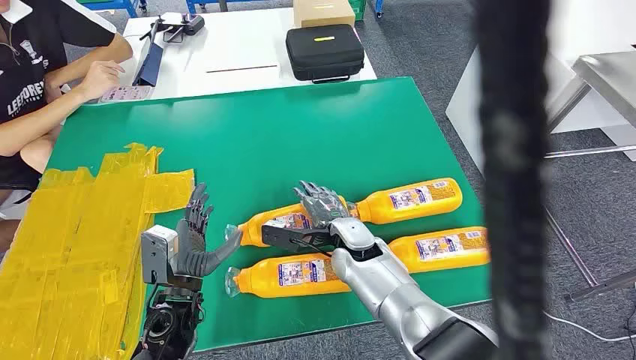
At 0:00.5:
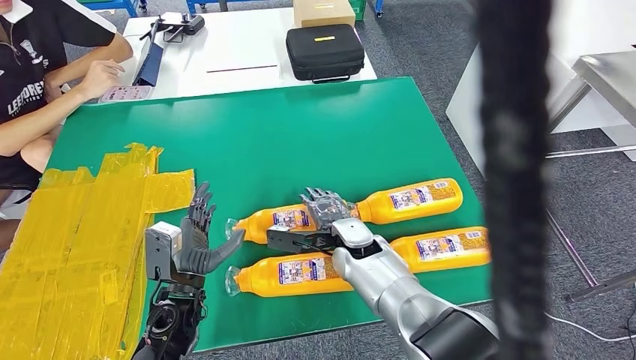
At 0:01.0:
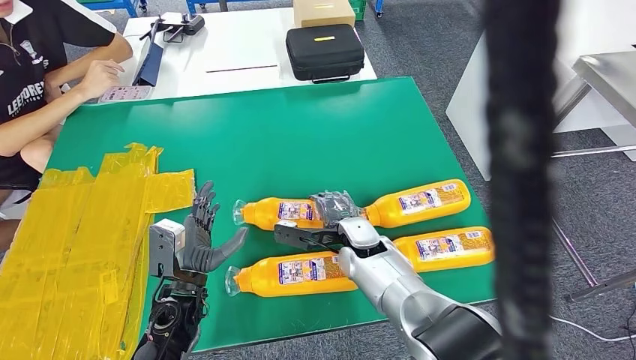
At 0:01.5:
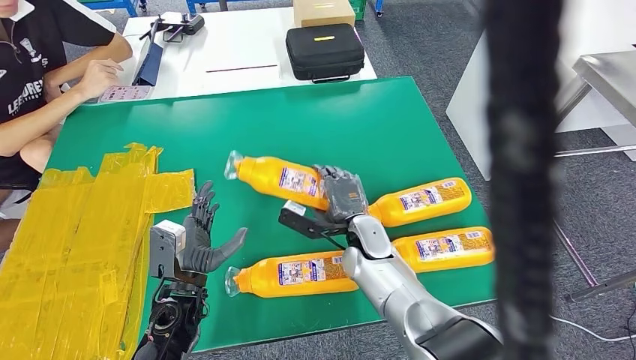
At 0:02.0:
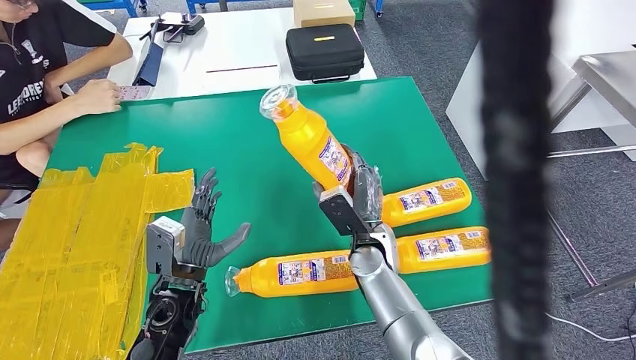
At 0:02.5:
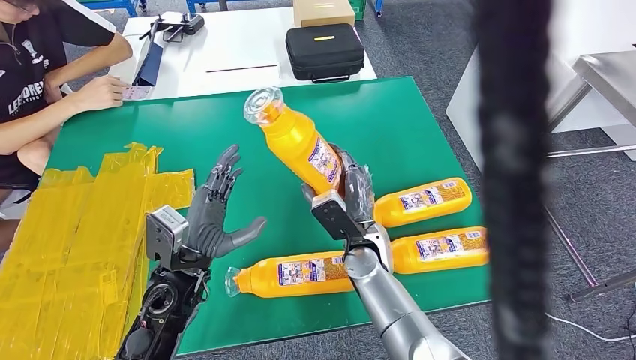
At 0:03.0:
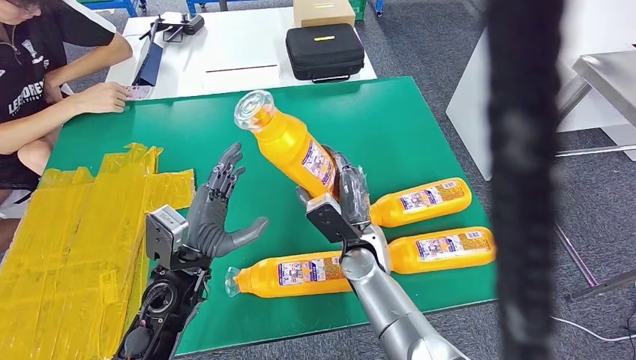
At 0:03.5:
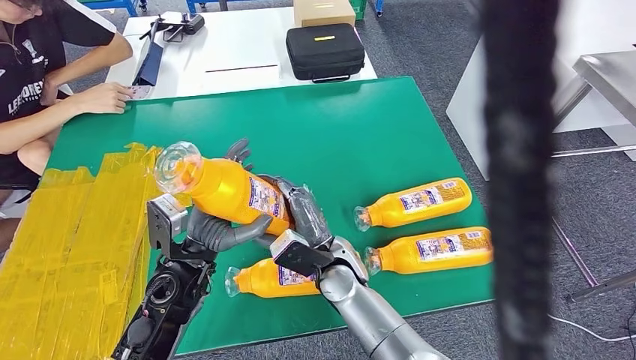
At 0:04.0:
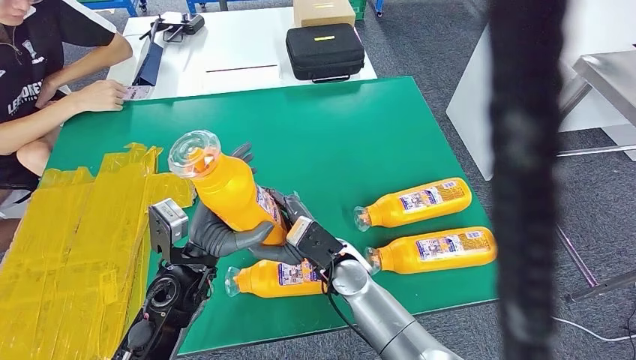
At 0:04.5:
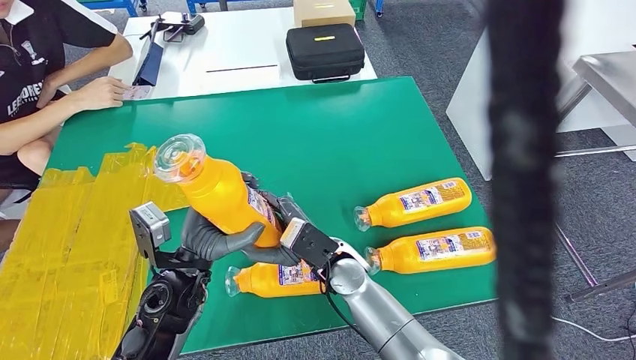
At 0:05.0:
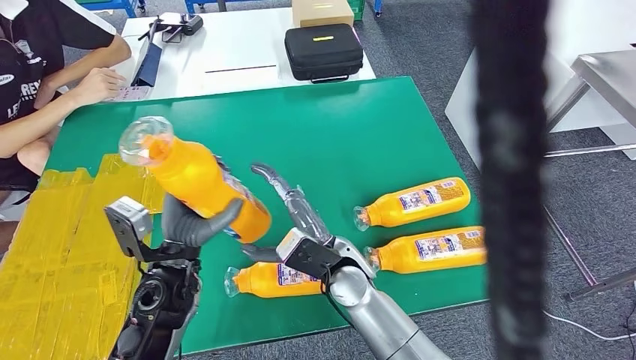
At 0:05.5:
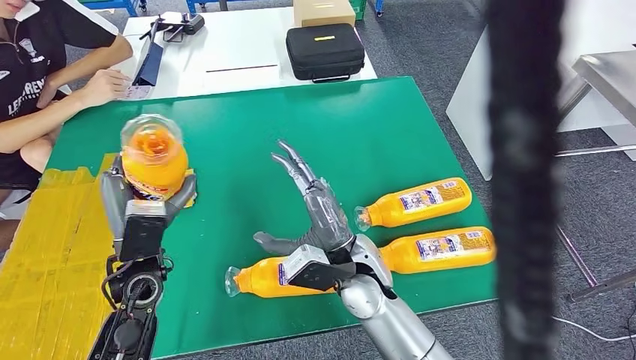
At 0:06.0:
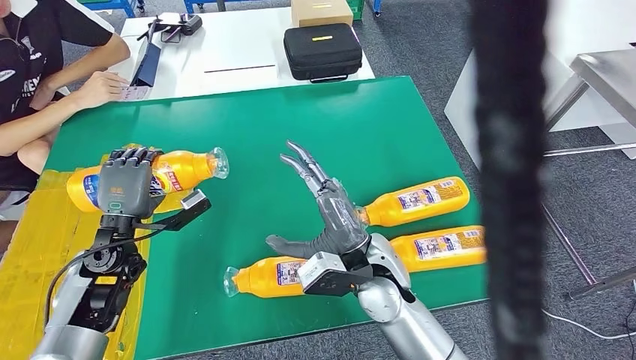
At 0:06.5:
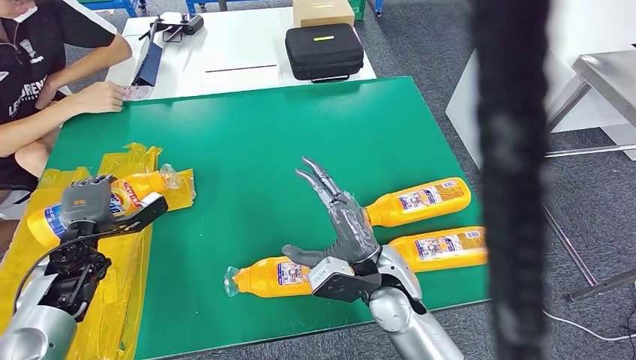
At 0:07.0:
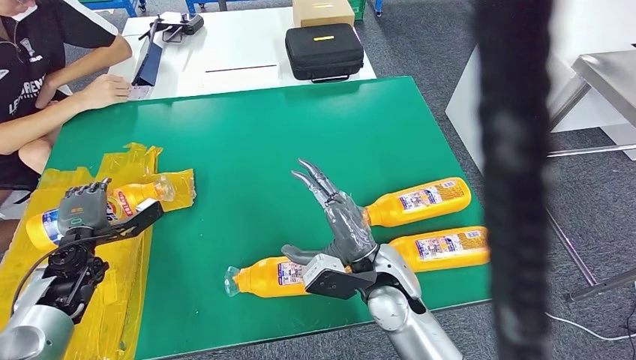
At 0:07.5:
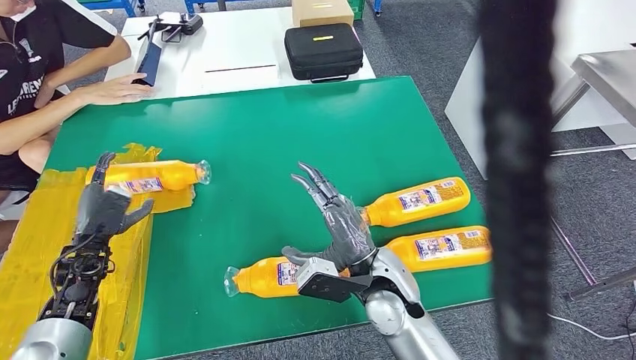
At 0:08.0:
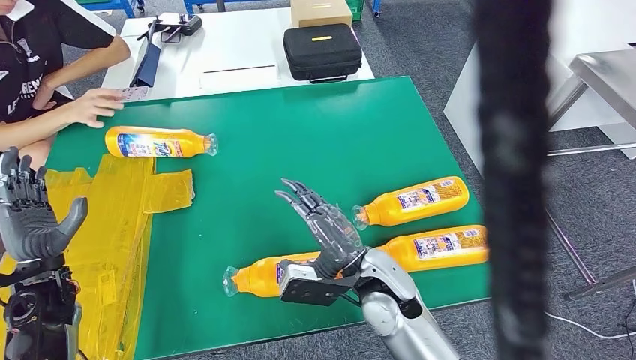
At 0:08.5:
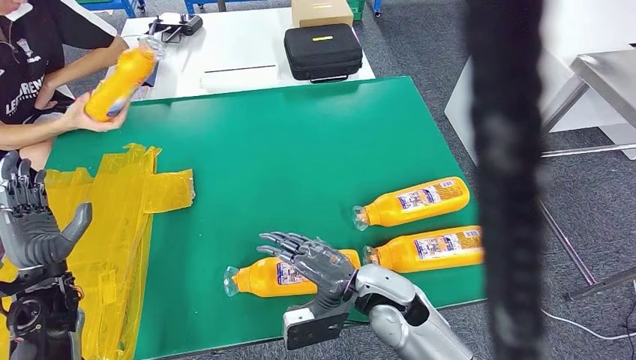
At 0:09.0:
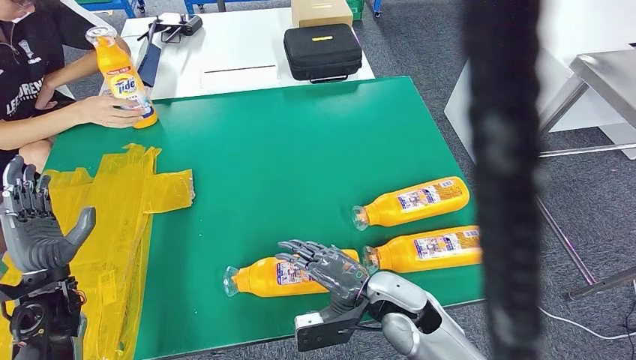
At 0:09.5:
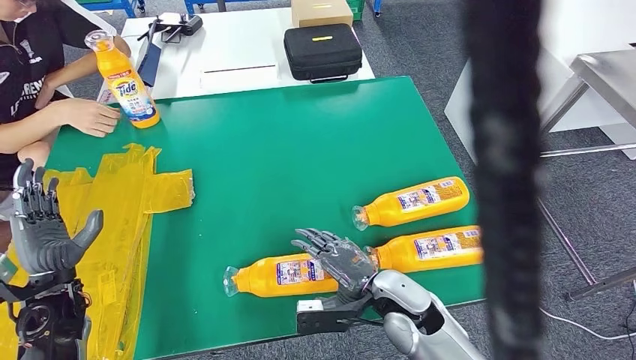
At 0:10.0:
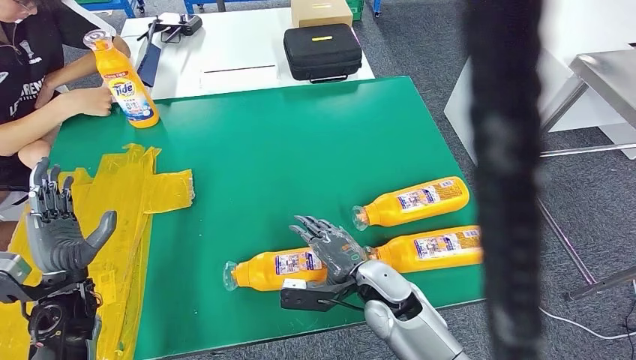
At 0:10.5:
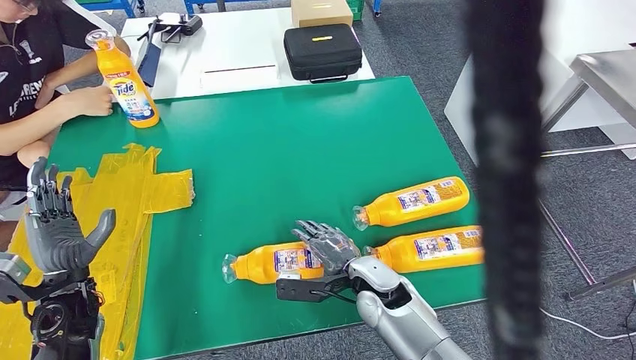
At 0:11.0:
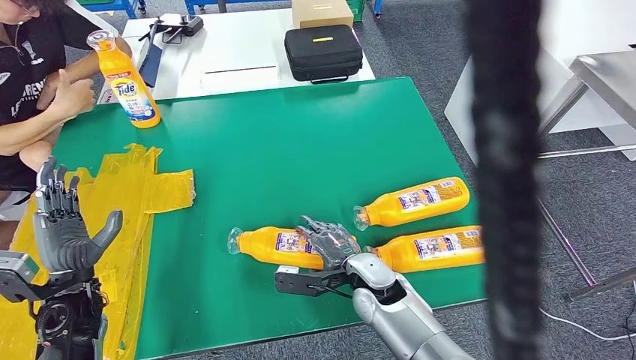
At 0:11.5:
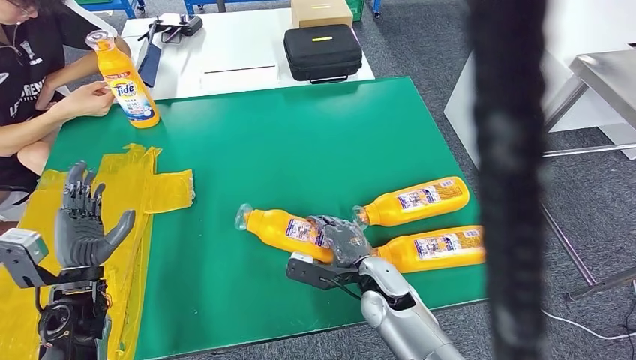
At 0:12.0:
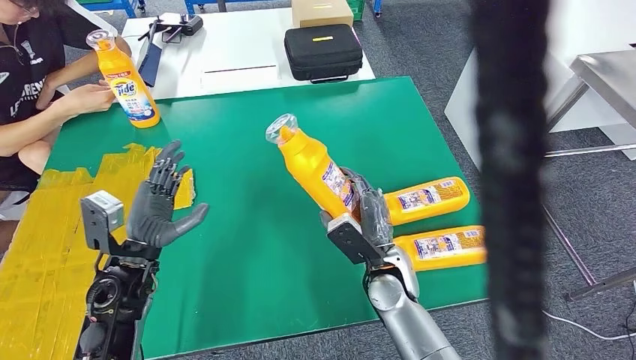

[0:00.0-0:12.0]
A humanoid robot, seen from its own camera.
Step, 0:00.0 to 0:02.5: Take the fast-moving consumer goods bottle from the table.
Step, 0:03.0 to 0:07.5: Flip the fast-moving consumer goods bottle to the front side.

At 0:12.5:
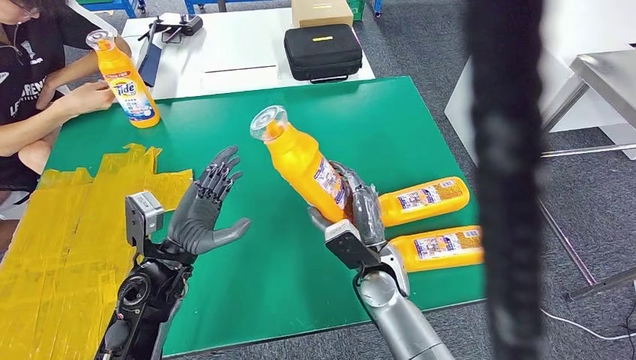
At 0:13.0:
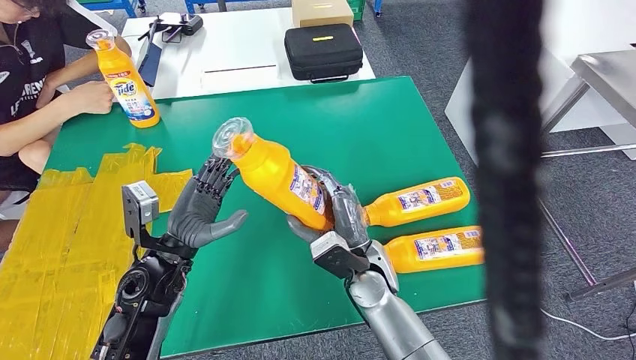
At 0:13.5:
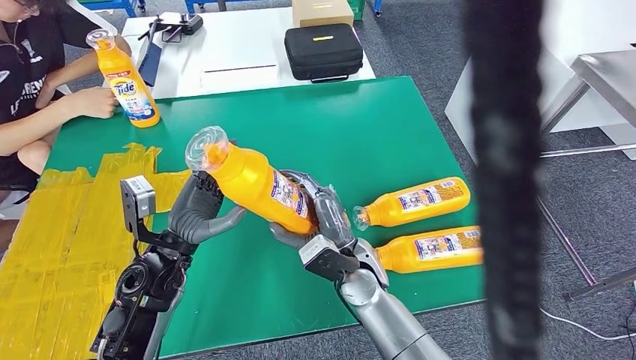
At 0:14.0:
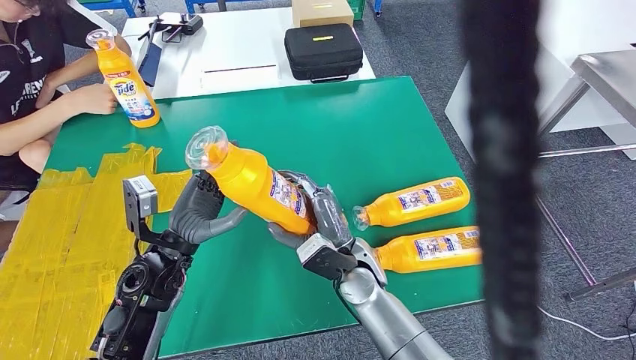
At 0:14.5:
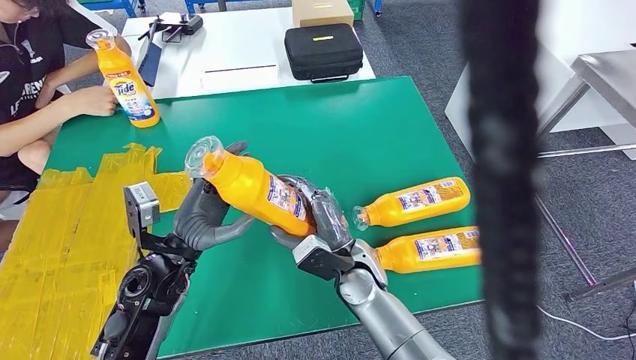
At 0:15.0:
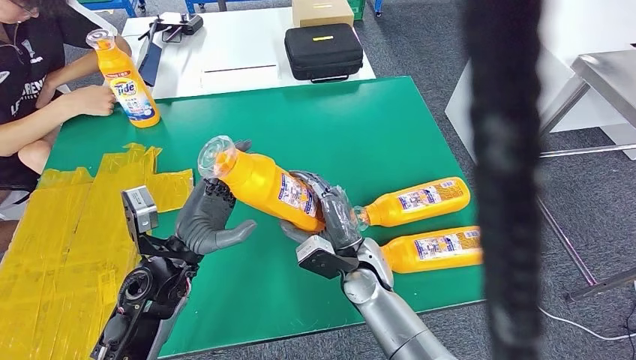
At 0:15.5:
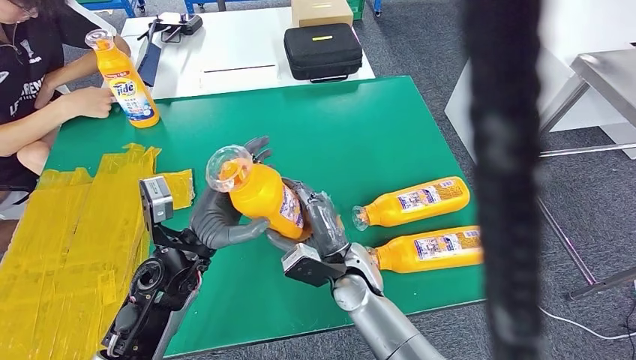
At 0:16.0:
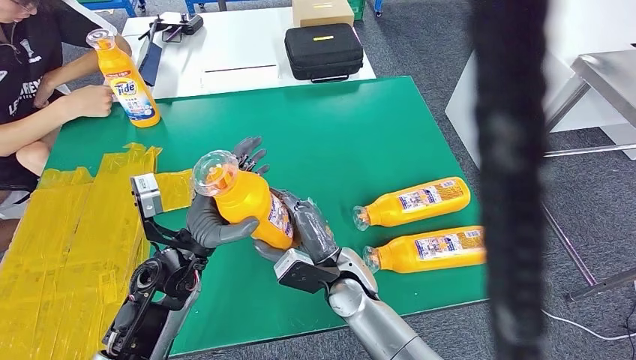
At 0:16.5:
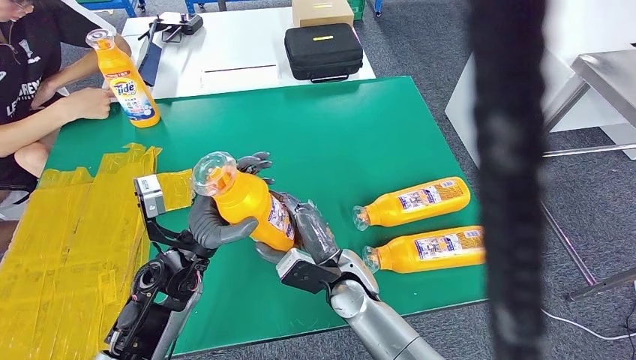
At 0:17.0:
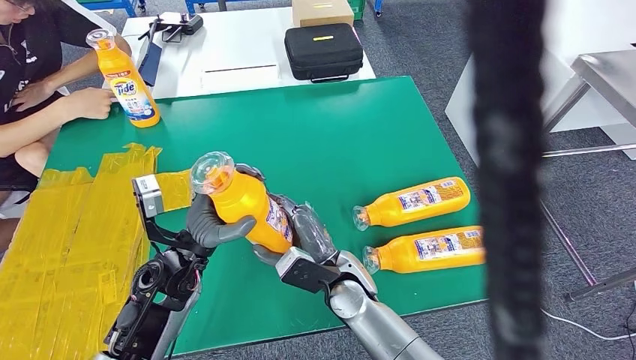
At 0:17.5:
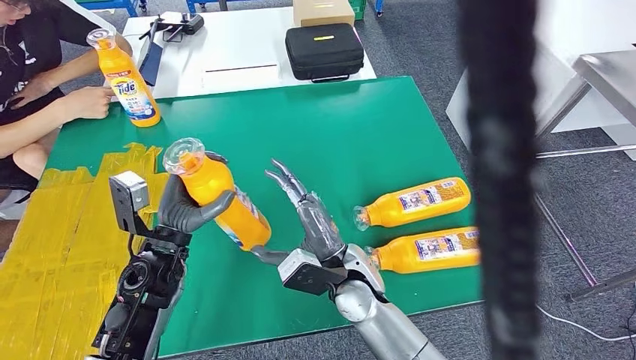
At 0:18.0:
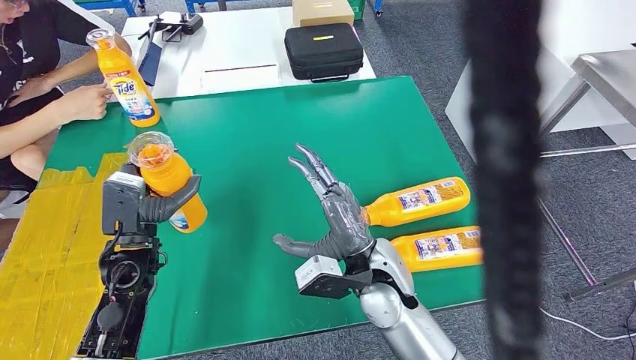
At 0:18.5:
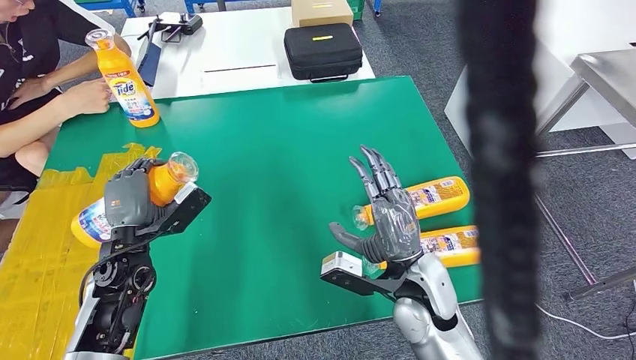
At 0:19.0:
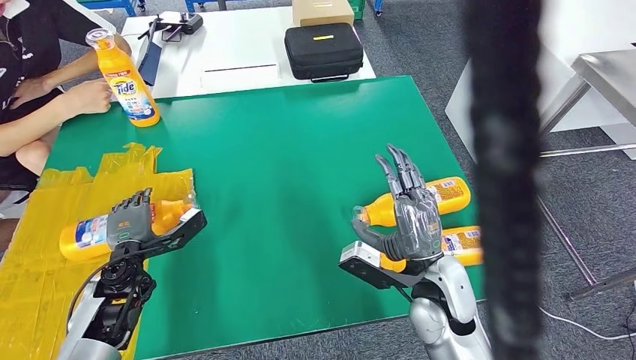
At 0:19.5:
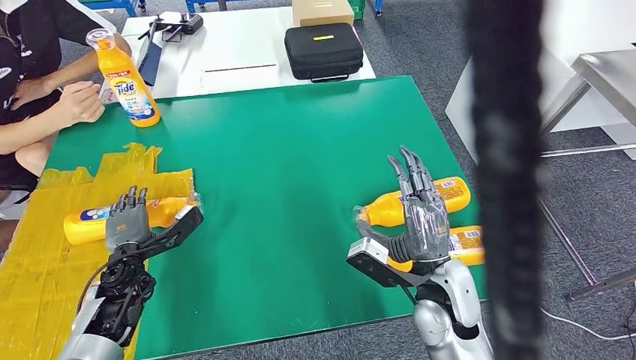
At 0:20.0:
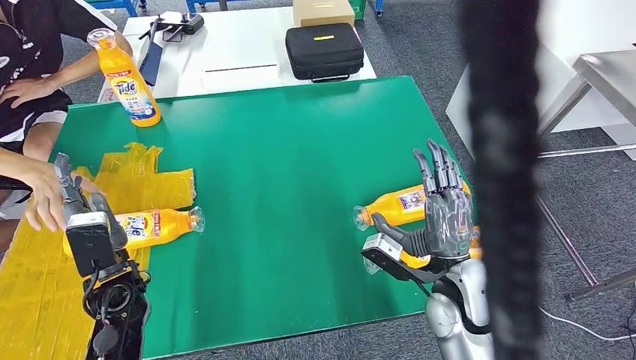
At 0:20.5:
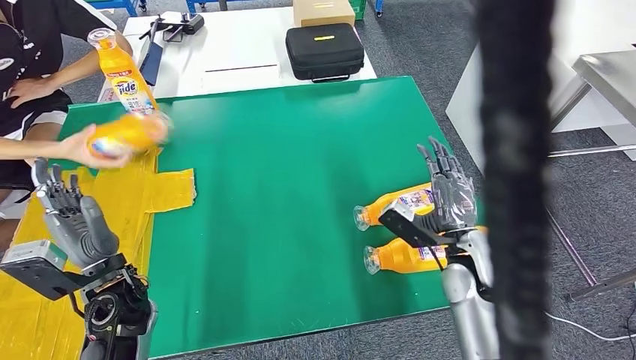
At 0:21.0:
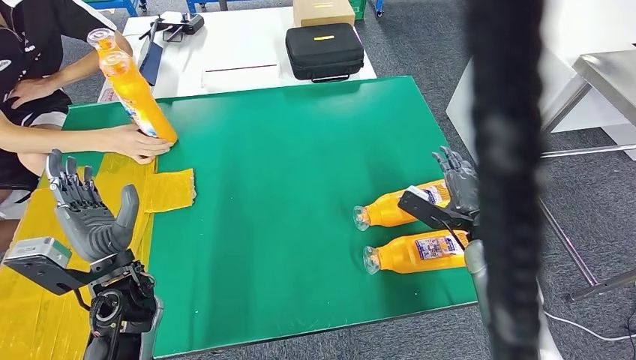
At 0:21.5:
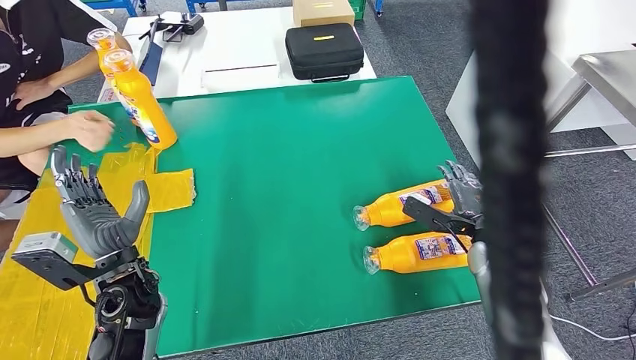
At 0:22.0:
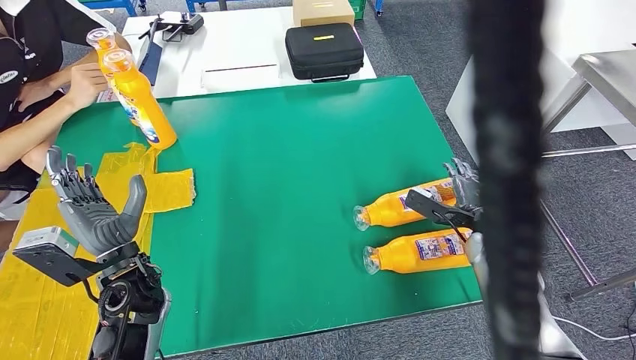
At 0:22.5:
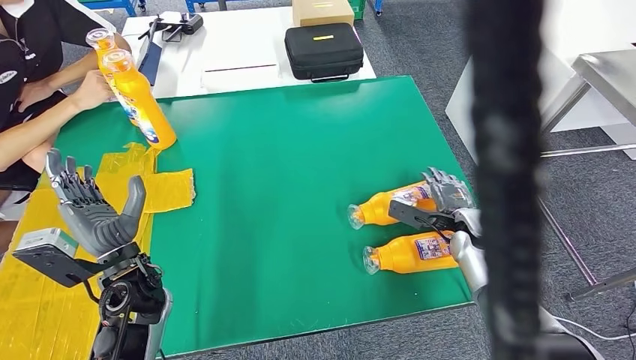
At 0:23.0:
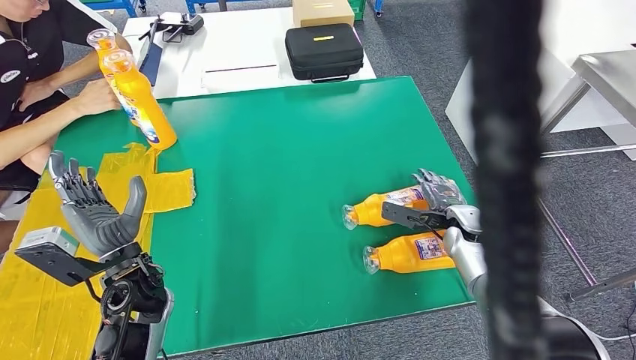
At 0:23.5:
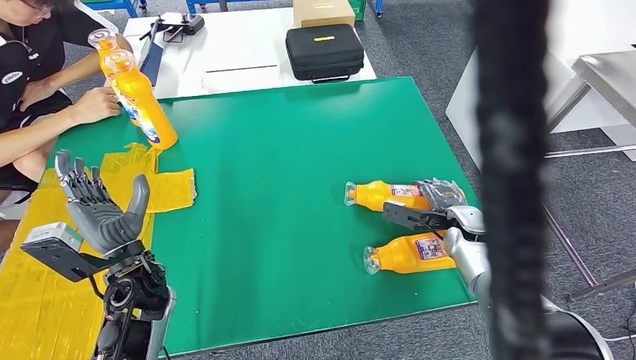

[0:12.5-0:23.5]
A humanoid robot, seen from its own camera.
Step, 0:14.0 to 0:19.5: Flip the fast-moving consumer goods bottle to the front side.
0:12.5 to 0:14.5: The hands move only a little.
0:14.5 to 0:16.0: The hands move only a little.
0:21.5 to 0:23.5: The right hand changes place by about 5 cm.
